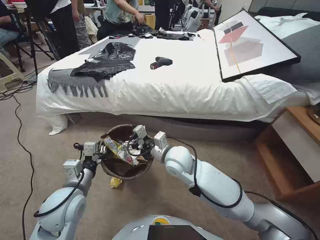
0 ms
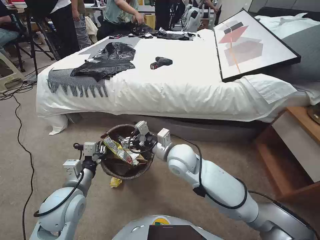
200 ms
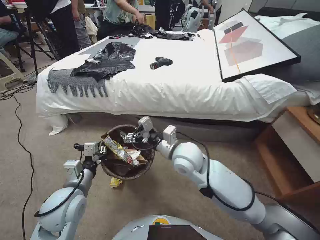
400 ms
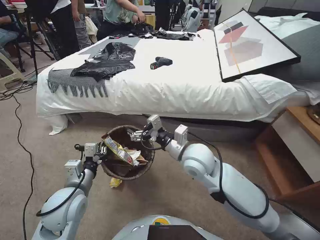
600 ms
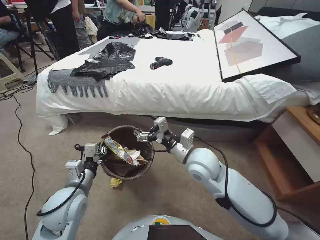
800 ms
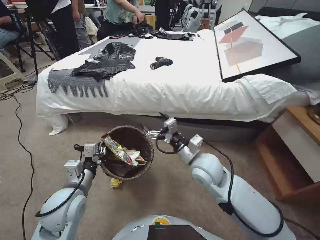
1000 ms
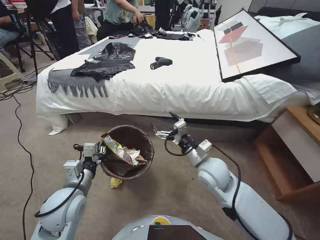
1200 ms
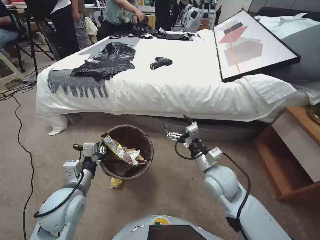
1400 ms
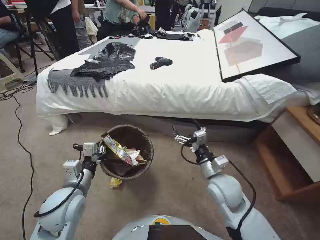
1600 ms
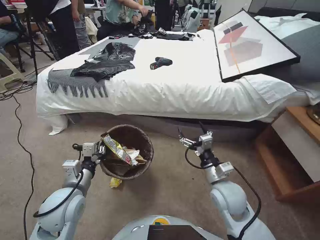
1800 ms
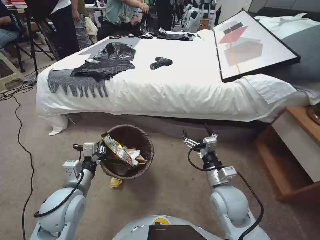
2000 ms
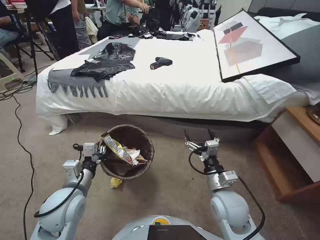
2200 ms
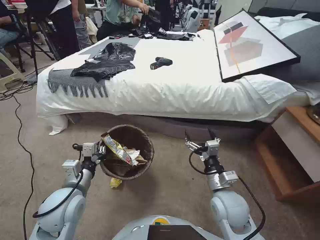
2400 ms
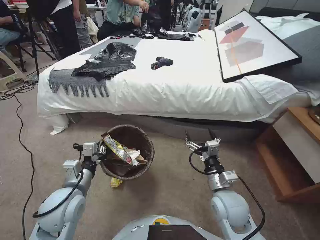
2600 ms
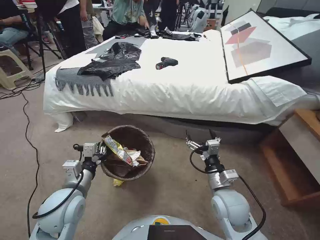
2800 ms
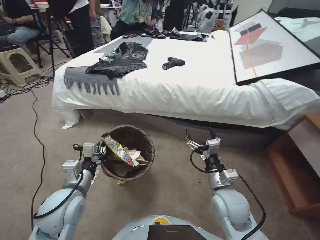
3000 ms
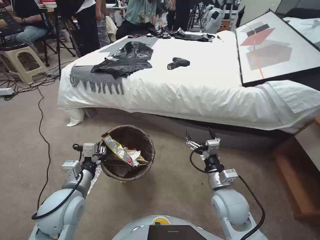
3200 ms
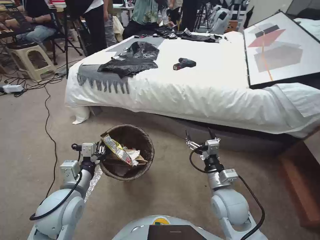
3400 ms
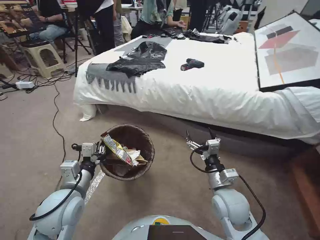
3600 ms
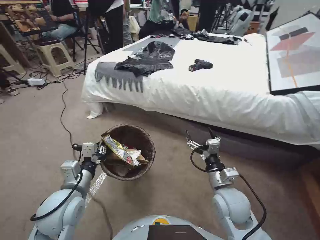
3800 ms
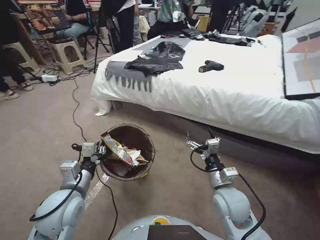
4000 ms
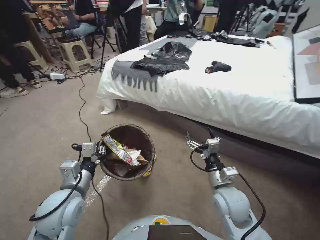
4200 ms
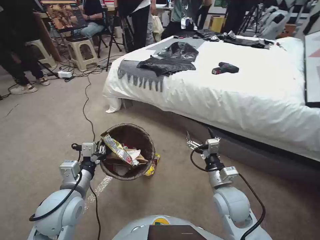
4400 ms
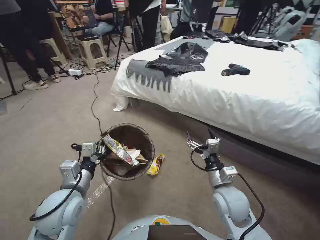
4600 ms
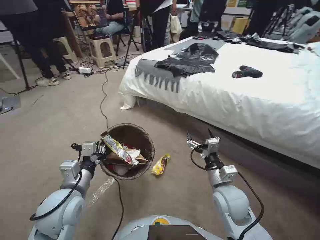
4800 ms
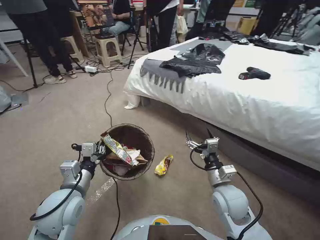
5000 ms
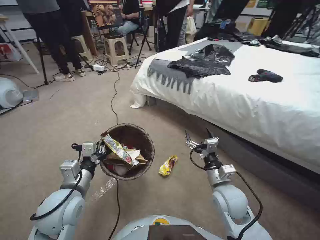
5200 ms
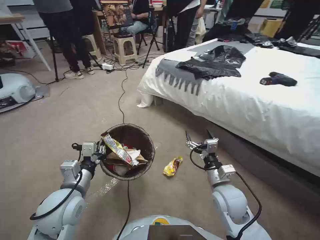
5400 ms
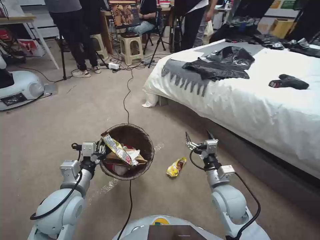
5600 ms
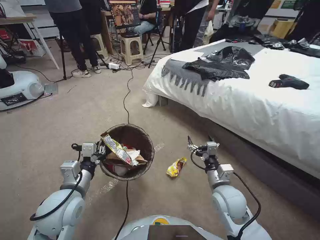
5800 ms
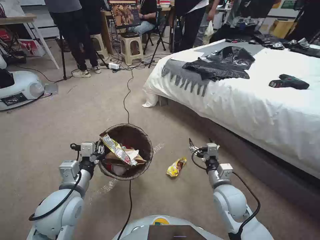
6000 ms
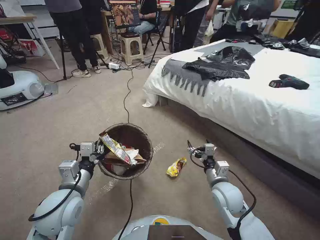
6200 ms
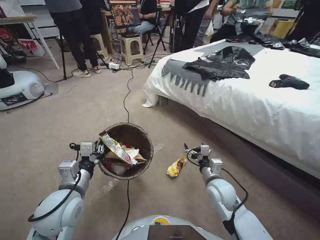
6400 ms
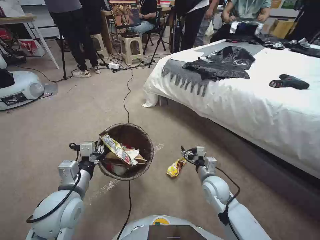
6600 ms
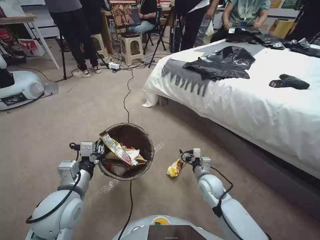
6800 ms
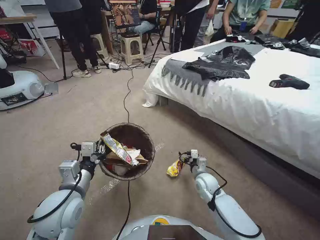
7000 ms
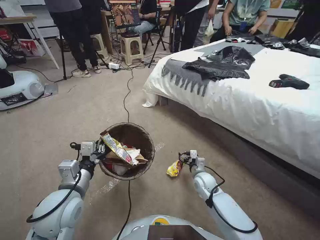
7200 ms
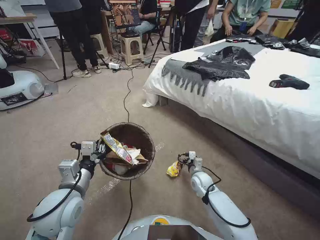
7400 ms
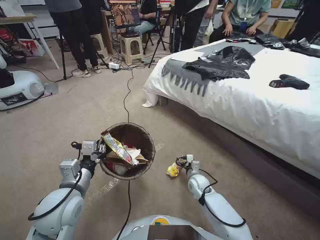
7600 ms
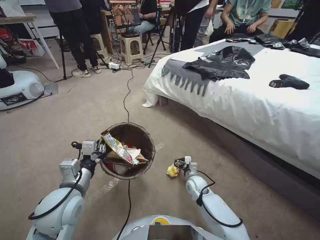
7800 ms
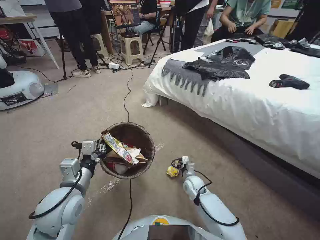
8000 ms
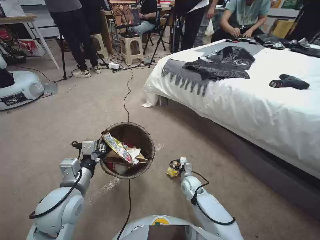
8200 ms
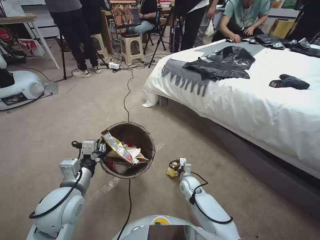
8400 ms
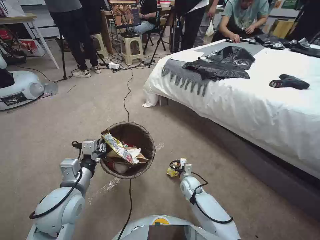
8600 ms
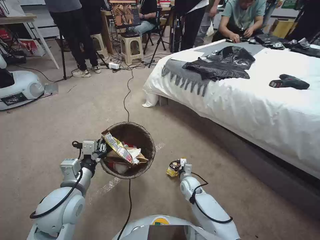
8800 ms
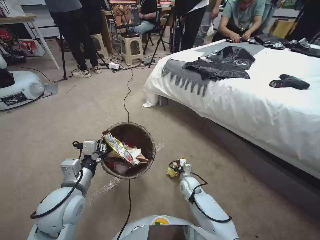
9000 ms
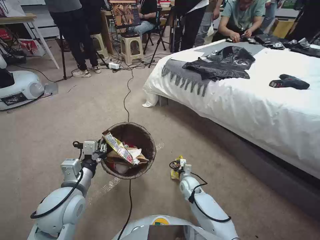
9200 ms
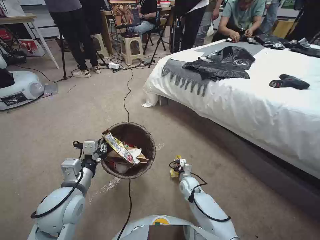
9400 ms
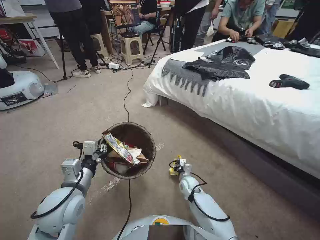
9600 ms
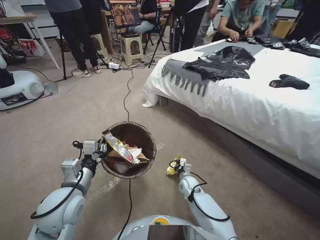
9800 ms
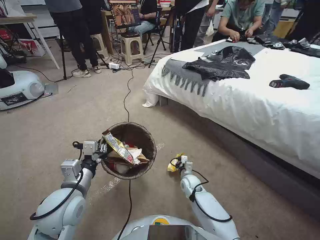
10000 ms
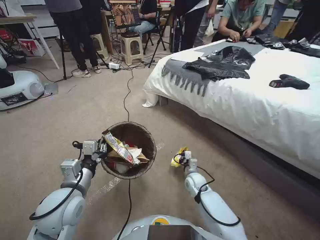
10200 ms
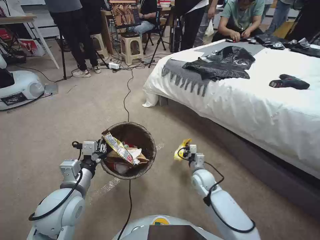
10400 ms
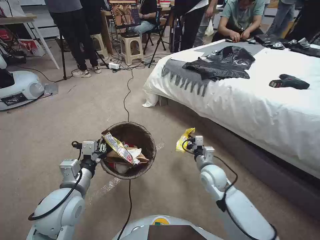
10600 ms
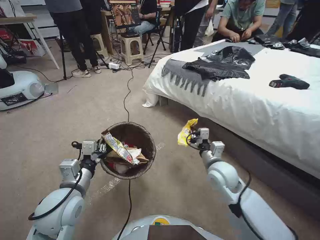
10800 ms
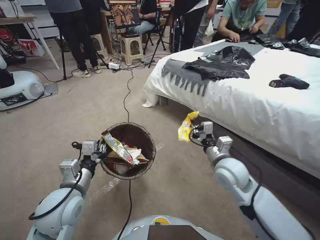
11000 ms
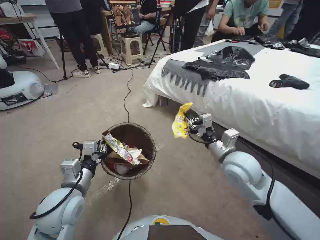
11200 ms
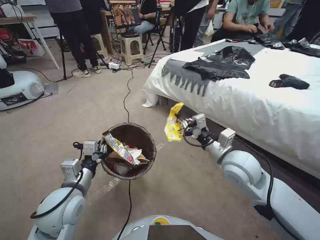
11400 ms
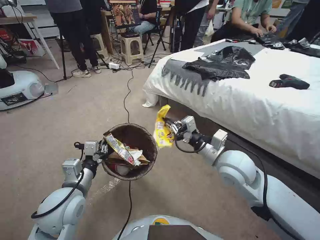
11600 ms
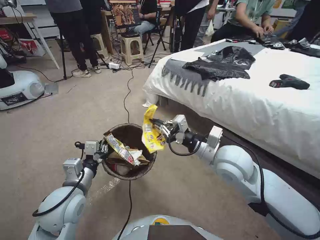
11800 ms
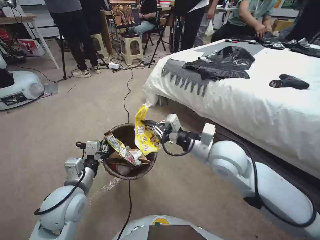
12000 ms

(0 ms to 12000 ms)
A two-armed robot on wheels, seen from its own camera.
Task of the whole recording: Pick up the trash bin, then pick up the garbage from the floor and place it into the trash bin.
0 ms - 1600 ms: The right gripper travels to the right and backward by roughly 15 cm.
1600 ms - 3000 ms: The right gripper moves approximately 5 cm.
6000 ms - 7600 ms: The right gripper travels downward and forward by some 20 cm.
7600 ms - 9000 ms: The right gripper shifts by roughly 5 cm.
9000 ms - 10400 ms: The right gripper is displaced upward by some 5 cm, and closes its fingers.
10400 ms - 12000 ms: The right gripper heads upward, covering roughly 30 cm.

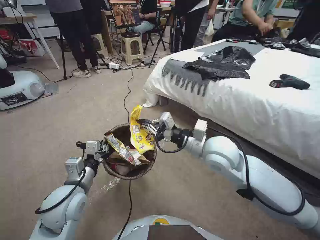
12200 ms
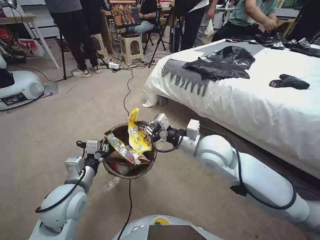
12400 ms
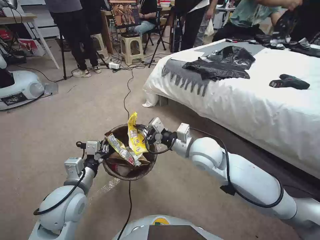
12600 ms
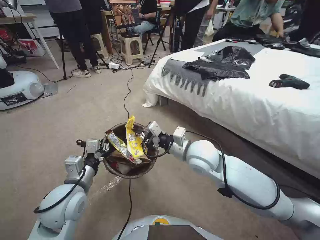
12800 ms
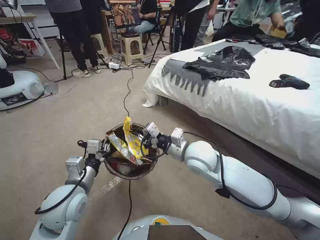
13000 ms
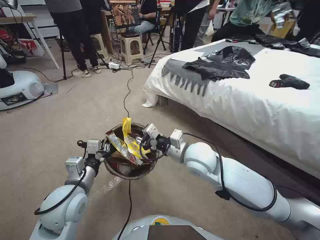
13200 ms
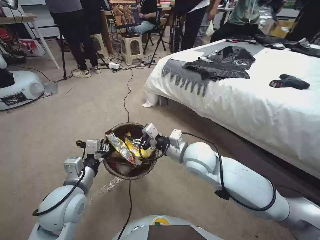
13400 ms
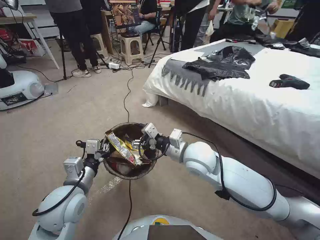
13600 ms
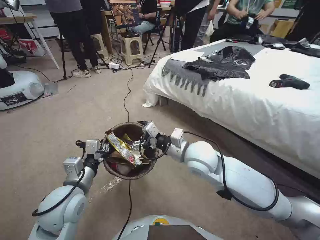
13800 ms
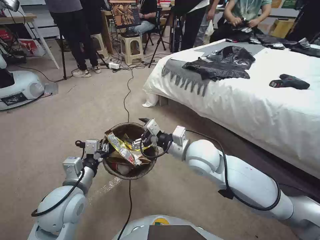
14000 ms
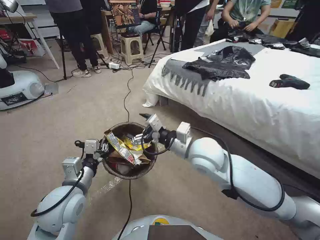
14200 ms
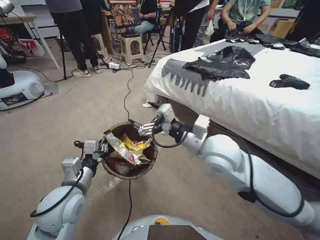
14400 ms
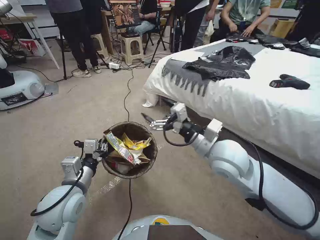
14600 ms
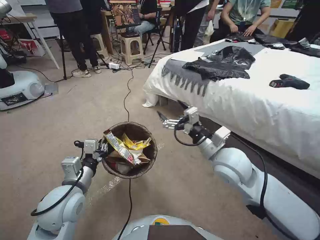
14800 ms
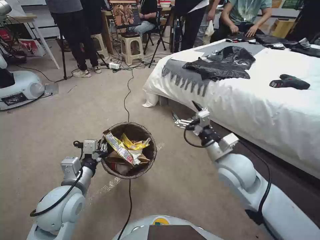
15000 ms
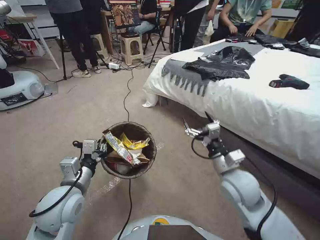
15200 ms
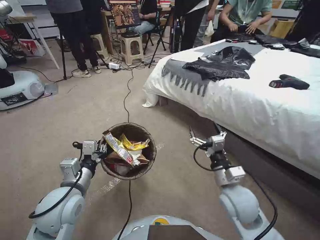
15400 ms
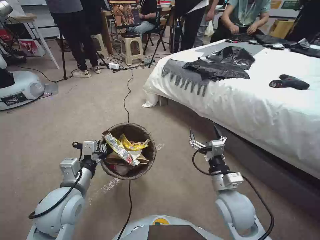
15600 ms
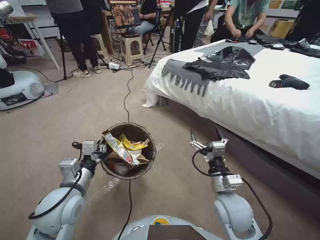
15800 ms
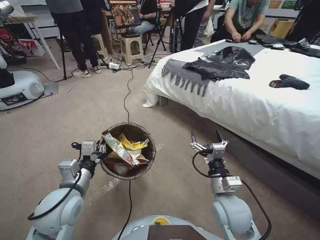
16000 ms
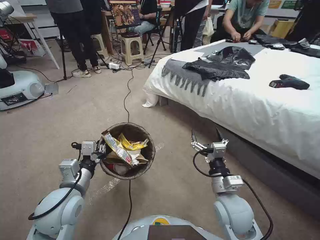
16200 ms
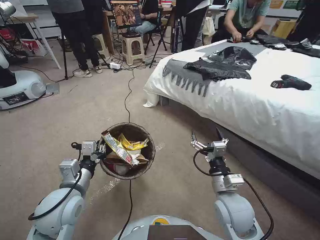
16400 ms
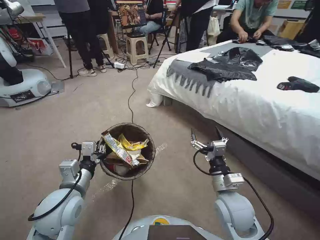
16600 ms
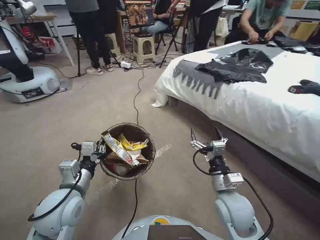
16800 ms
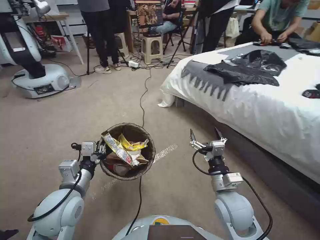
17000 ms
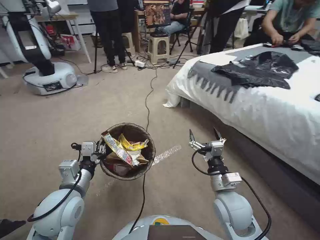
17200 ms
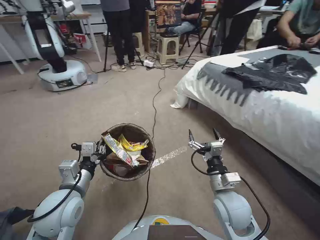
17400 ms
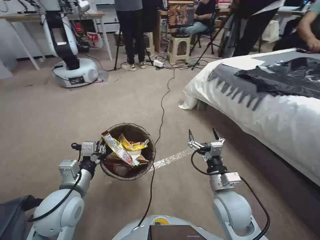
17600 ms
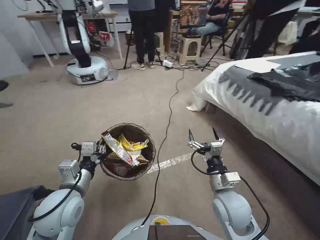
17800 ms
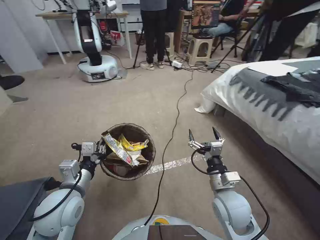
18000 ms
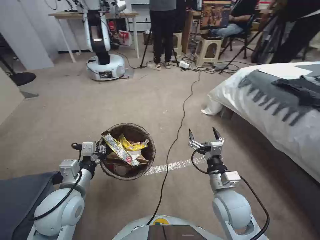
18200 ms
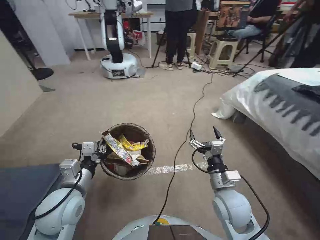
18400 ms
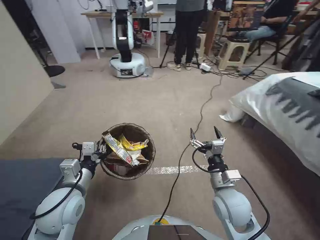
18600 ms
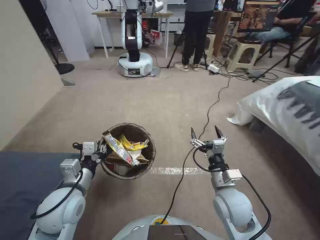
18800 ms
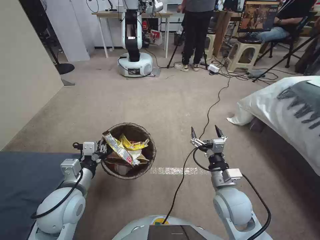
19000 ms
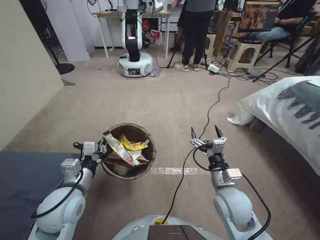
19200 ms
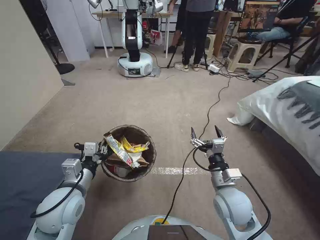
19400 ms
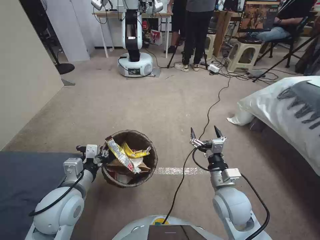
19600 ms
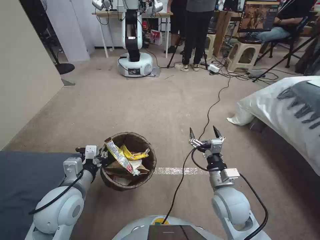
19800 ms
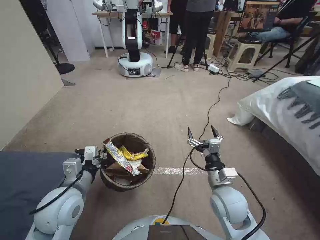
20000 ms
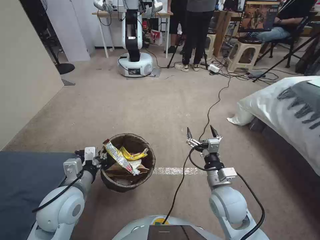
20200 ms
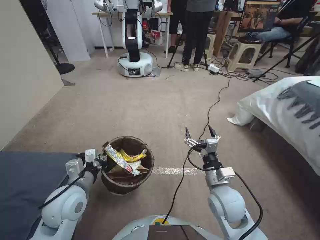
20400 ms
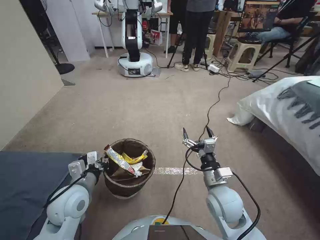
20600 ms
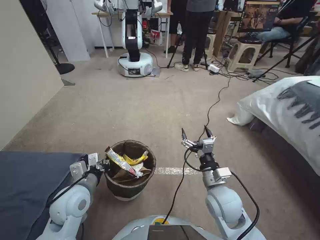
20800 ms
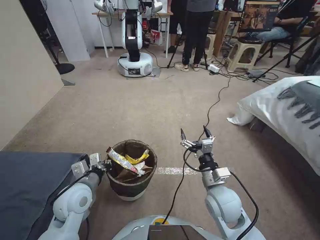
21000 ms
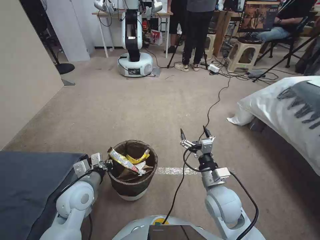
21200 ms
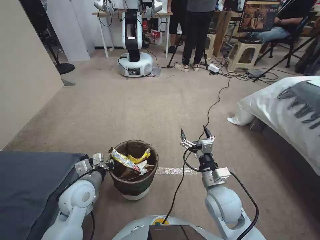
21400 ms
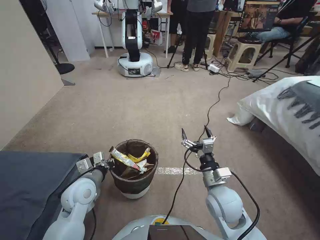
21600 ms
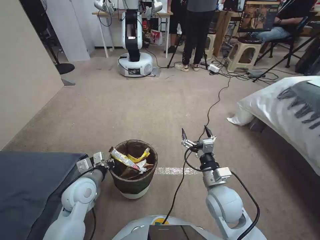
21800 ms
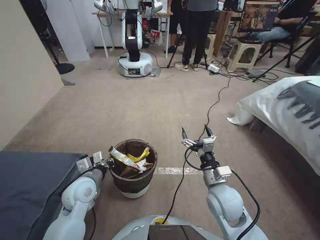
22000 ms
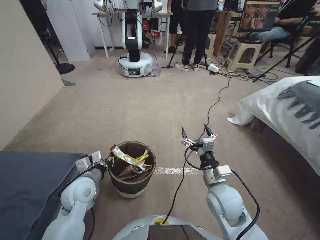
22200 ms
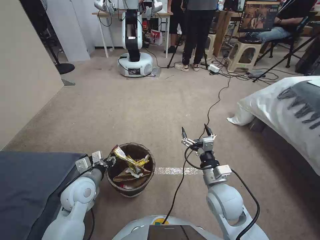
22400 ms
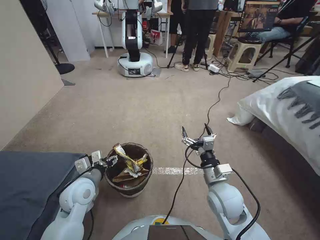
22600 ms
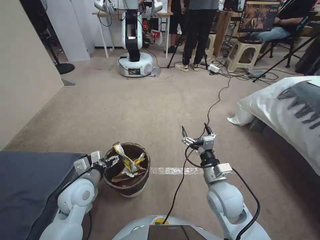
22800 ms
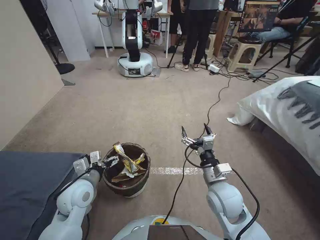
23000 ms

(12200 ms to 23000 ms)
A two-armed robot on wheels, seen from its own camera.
Task of the whole recording: Pick up the trash bin, then pick up the garbage from the floor and place it into the trash bin.
12200 ms - 13800 ms: The right gripper travels to the left by about 5 cm, and opens up.
13800 ms - 15200 ms: The right gripper is displaced to the right by approximately 10 cm.
15200 ms - 16800 ms: The right gripper shifts about 10 cm downward and backward.
20000 ms - 21400 ms: The left gripper moves downward, approximately 5 cm.
21400 ms - 23000 ms: The left gripper opens up.
